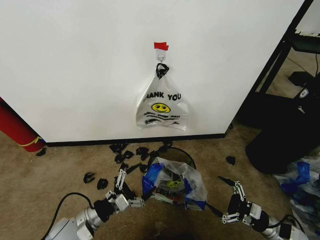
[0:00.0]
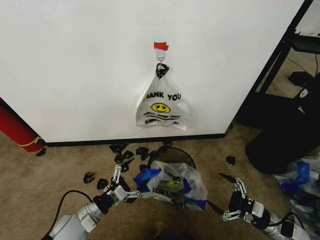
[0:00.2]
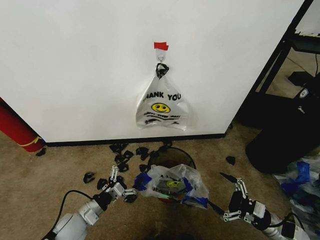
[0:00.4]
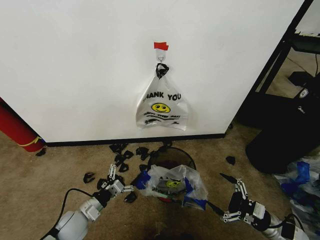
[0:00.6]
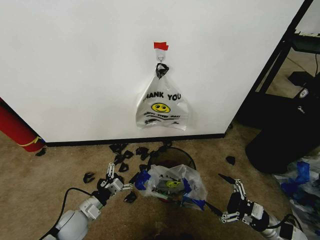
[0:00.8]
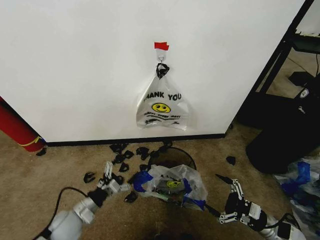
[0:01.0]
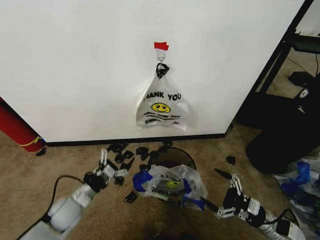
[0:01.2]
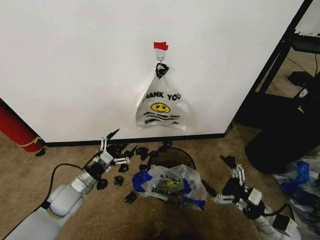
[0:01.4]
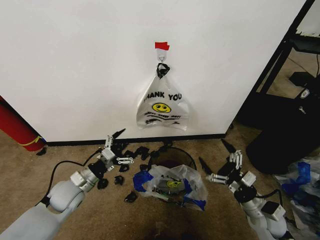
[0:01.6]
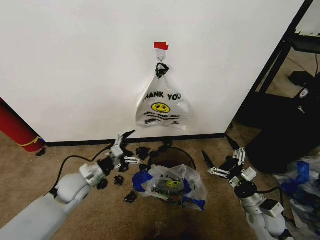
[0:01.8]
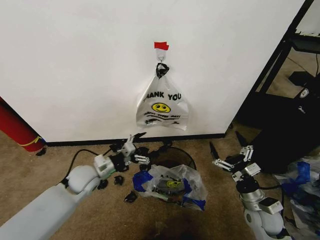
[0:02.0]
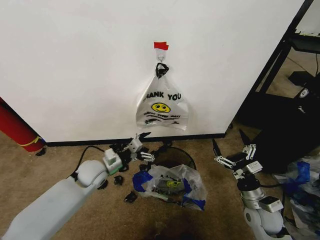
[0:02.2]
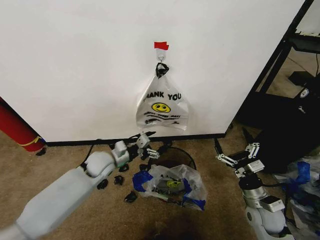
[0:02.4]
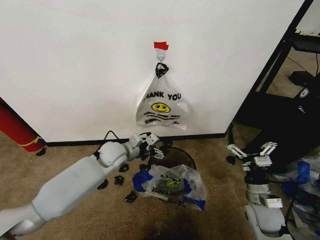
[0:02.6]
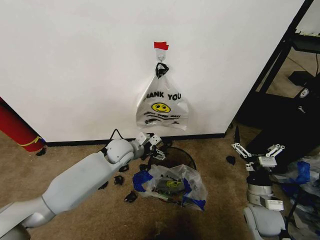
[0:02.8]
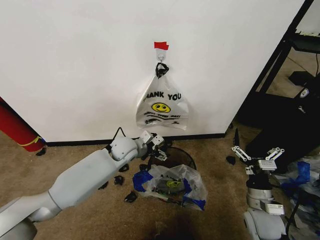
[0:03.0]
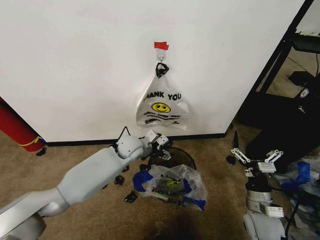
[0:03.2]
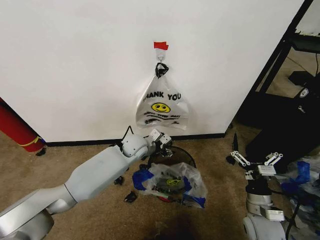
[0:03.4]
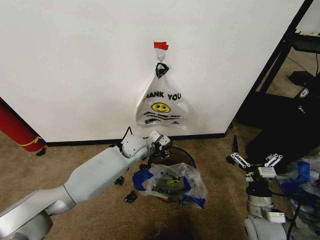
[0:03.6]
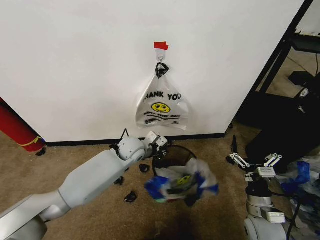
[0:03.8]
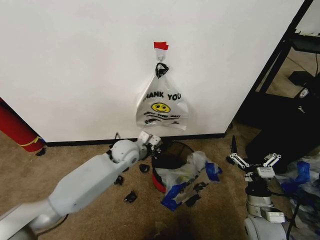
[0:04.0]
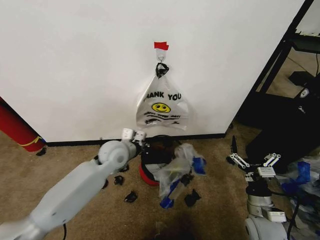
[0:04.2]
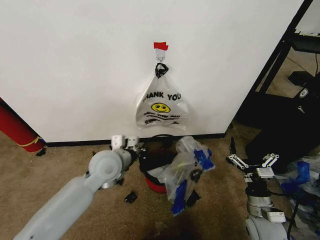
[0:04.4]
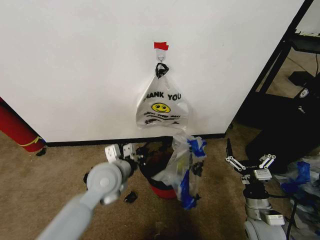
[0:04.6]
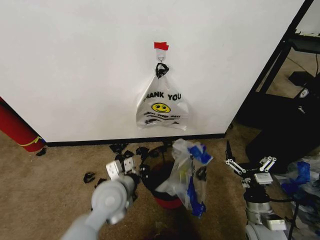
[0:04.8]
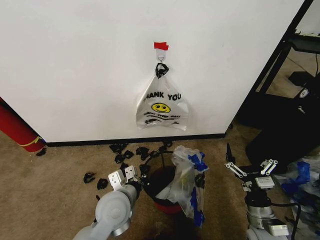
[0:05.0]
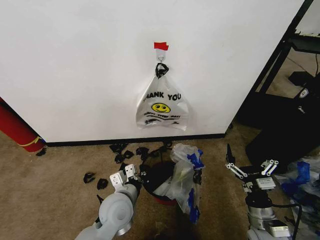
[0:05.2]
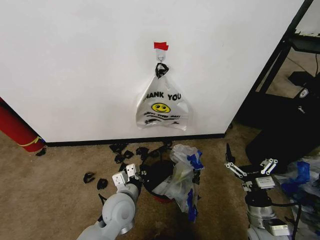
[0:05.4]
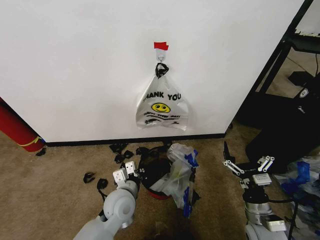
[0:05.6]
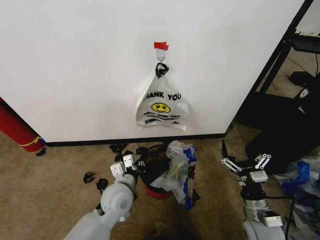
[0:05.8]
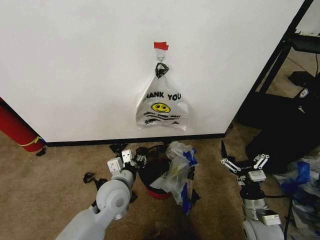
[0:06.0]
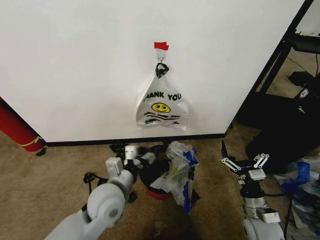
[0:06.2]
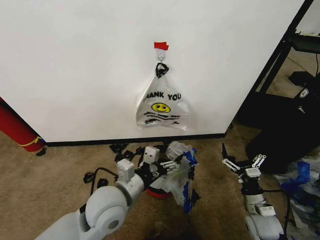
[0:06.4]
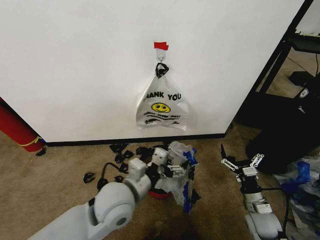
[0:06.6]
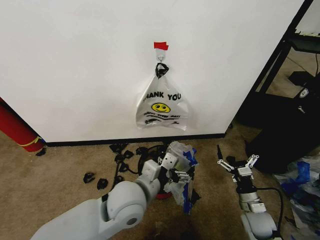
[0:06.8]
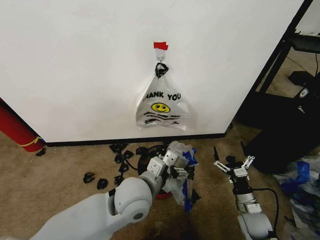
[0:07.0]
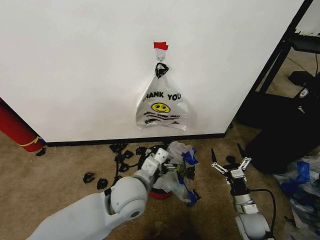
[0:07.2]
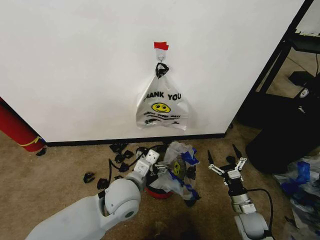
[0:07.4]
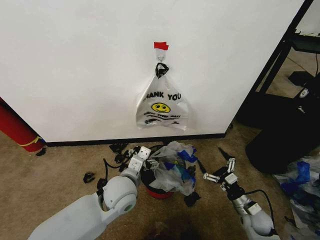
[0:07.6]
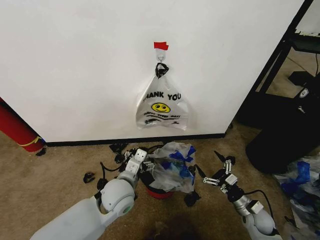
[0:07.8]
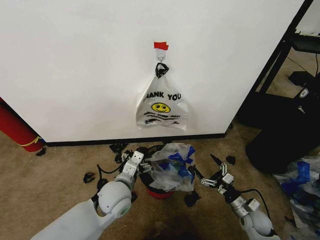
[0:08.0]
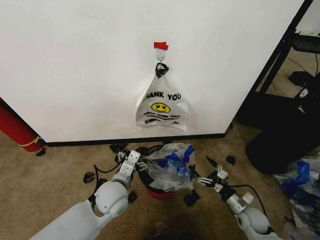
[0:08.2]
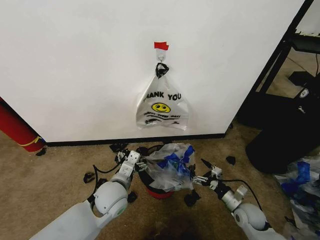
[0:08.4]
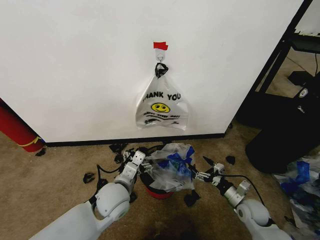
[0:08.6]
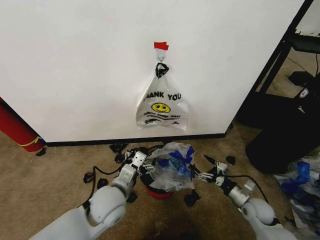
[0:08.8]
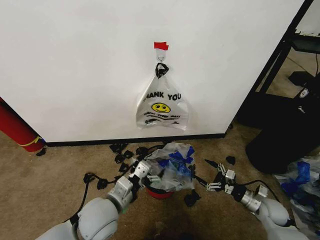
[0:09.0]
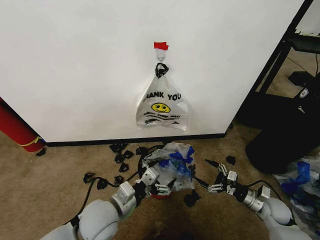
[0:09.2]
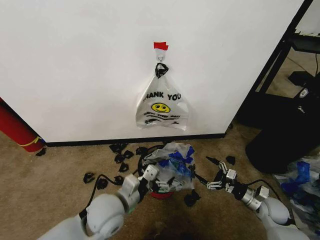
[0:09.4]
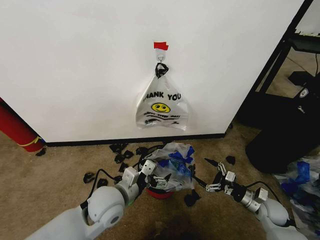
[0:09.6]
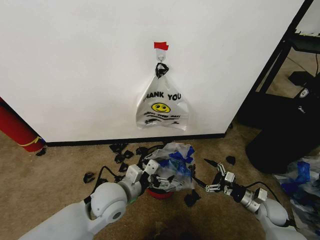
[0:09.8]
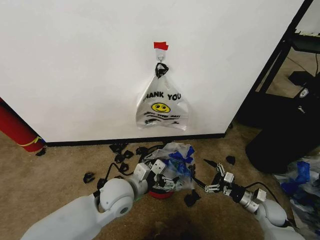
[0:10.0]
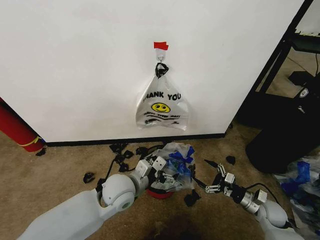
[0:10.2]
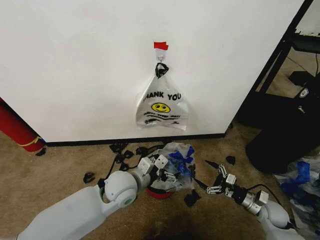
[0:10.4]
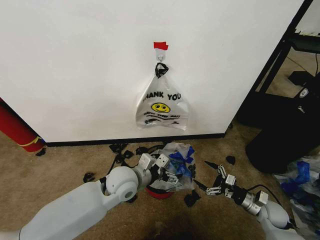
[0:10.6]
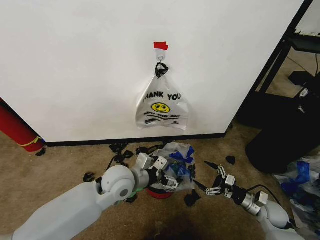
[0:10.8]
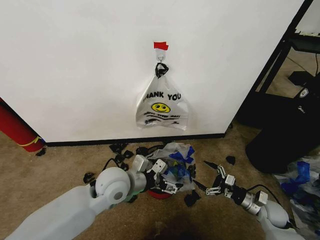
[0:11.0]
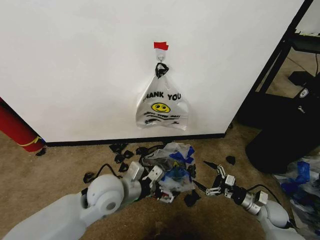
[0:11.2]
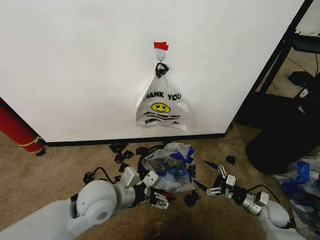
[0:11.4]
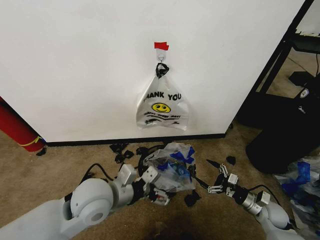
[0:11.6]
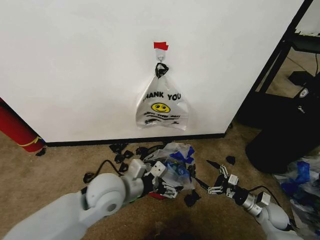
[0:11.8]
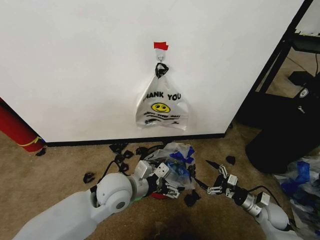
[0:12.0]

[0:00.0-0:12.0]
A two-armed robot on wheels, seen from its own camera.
Task of the whole recording: Pick up the garbage bag from the wall and place it over the trash bin.
0:00.0 to 0:01.6: The left gripper shifts some 10 cm forward. The right gripper heads to the left and upward, covering approximately 10 cm.
0:01.6 to 0:03.0: The left gripper travels to the right and forward by approximately 20 cm.
0:03.0 to 0:04.4: The left gripper travels backward and upward by approximately 10 cm, and closes up.
0:04.4 to 0:06.0: The left gripper heads backward and downward, covering roughly 10 cm, and opens up.
0:06.0 to 0:07.6: The right gripper is displaced downward by roughly 10 cm. Meanwhile the left gripper opens up.
0:07.6 to 0:09.0: The left gripper heads backward, covering about 5 cm. The right gripper moves to the right, roughly 5 cm.
0:09.0 to 0:10.4: The left gripper goes about 10 cm forward.

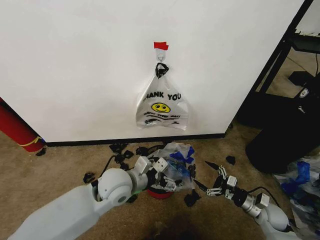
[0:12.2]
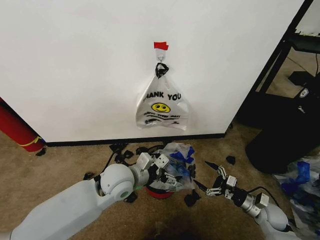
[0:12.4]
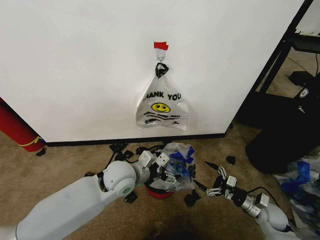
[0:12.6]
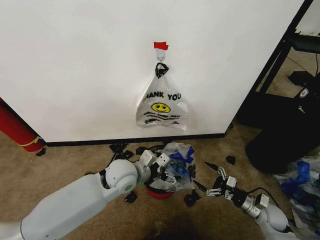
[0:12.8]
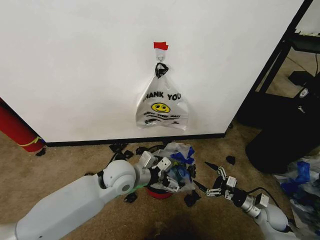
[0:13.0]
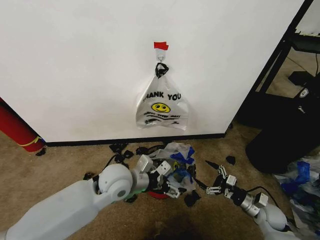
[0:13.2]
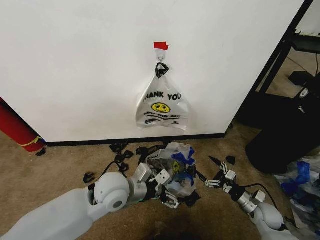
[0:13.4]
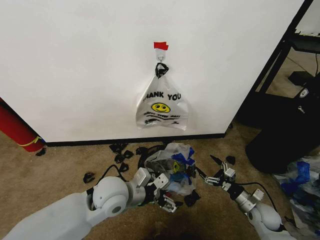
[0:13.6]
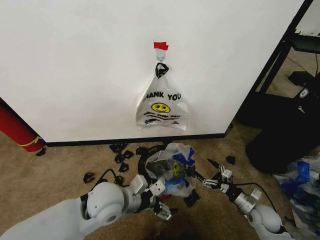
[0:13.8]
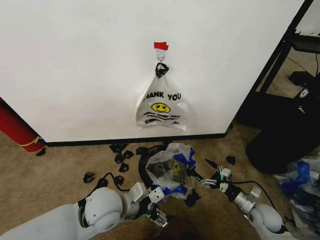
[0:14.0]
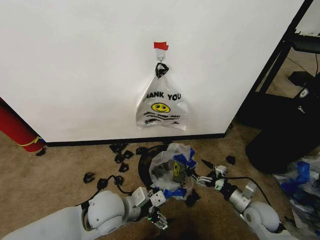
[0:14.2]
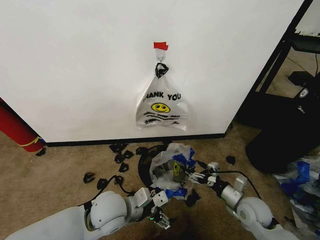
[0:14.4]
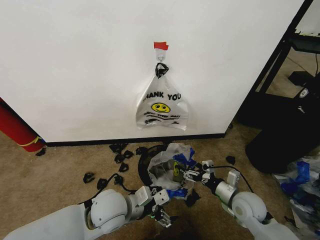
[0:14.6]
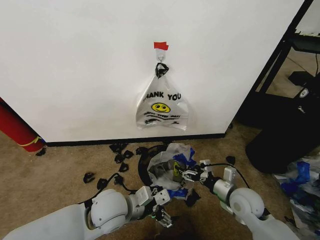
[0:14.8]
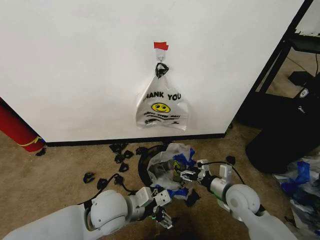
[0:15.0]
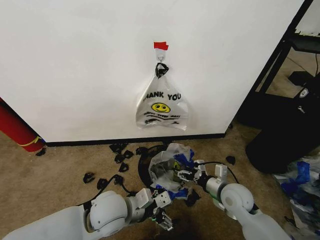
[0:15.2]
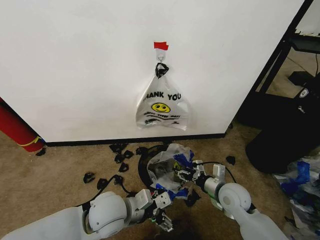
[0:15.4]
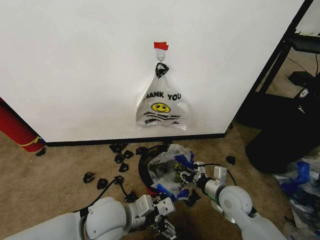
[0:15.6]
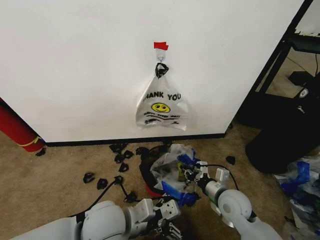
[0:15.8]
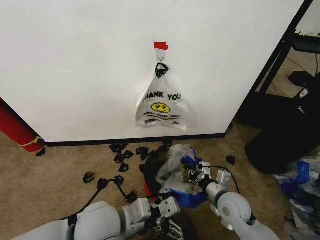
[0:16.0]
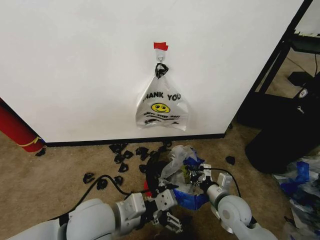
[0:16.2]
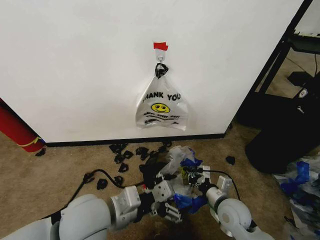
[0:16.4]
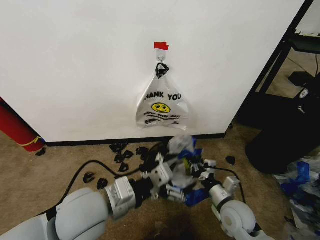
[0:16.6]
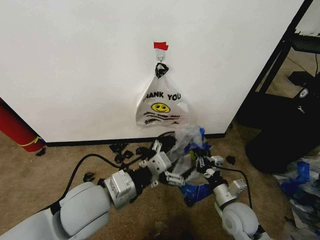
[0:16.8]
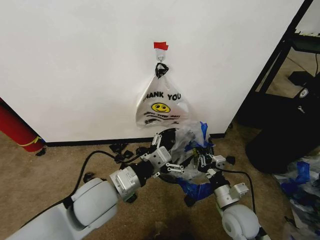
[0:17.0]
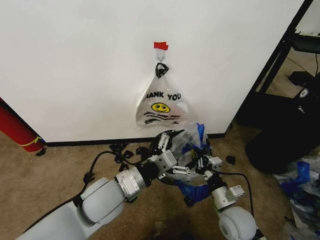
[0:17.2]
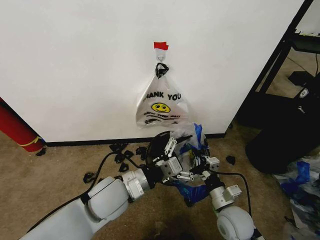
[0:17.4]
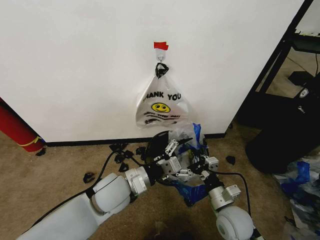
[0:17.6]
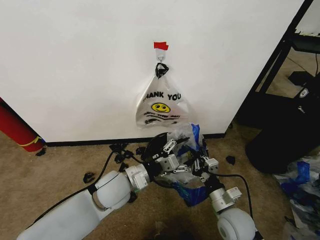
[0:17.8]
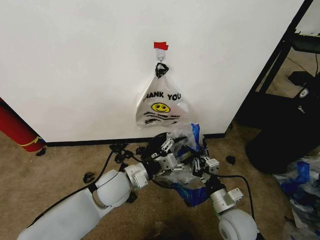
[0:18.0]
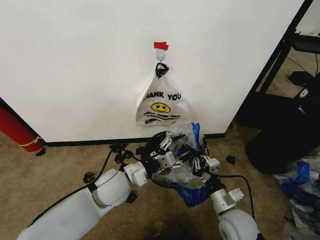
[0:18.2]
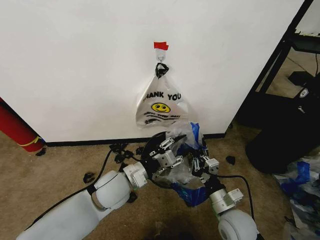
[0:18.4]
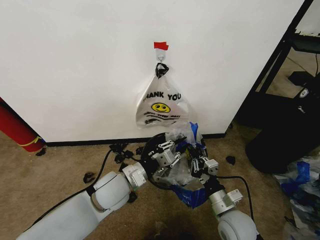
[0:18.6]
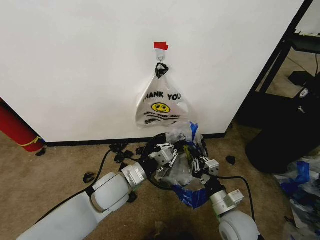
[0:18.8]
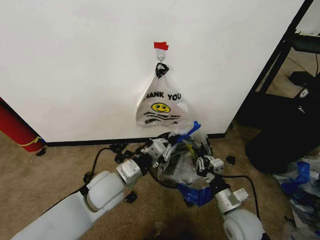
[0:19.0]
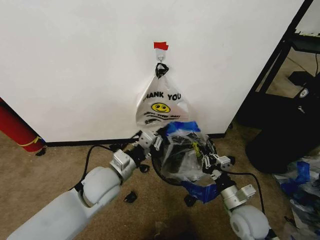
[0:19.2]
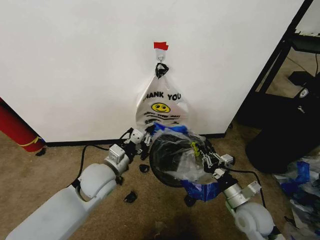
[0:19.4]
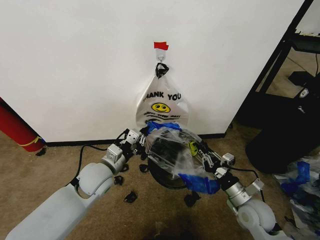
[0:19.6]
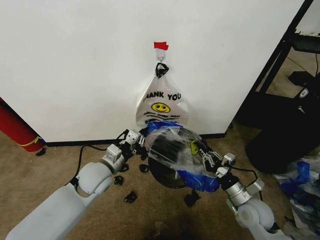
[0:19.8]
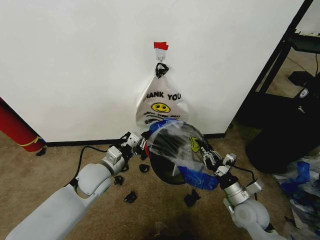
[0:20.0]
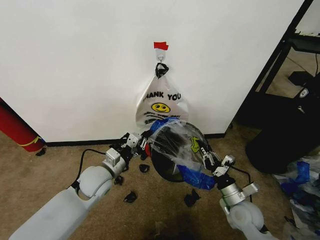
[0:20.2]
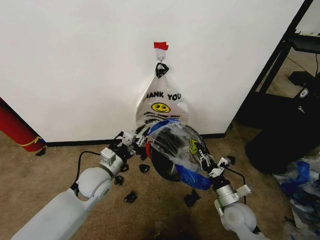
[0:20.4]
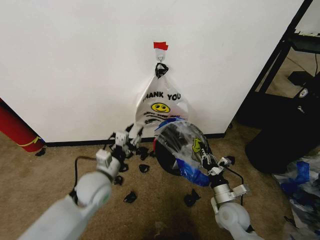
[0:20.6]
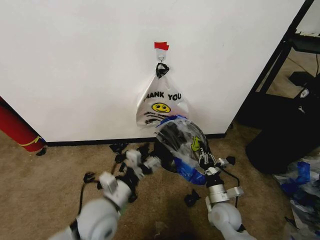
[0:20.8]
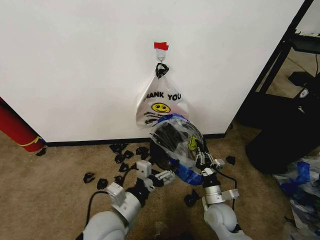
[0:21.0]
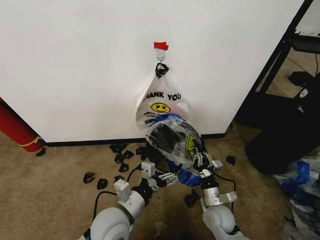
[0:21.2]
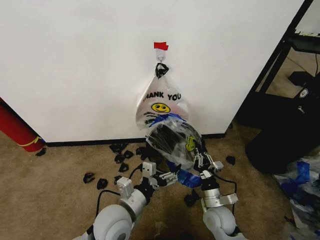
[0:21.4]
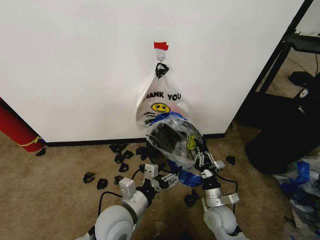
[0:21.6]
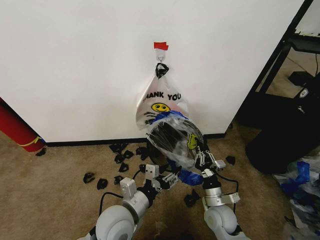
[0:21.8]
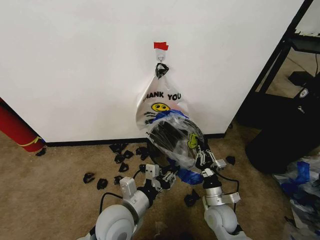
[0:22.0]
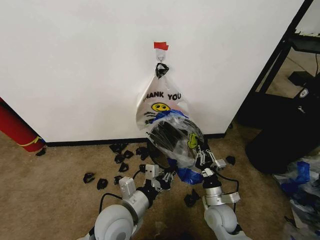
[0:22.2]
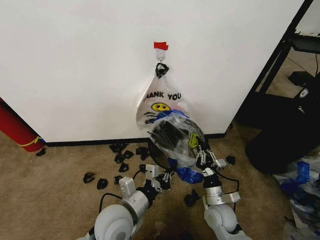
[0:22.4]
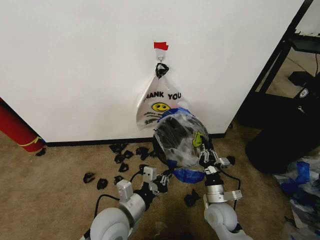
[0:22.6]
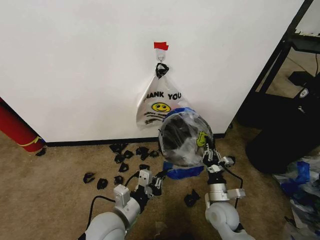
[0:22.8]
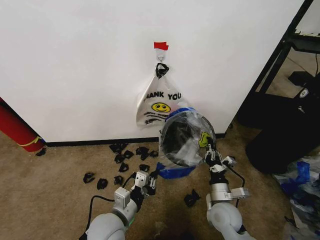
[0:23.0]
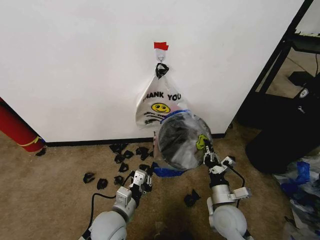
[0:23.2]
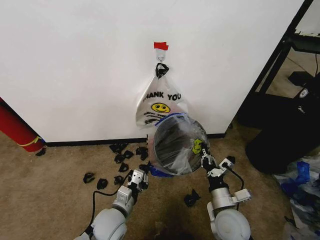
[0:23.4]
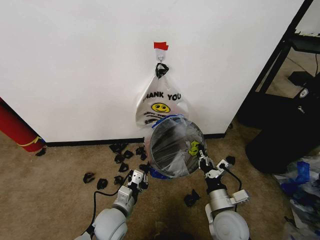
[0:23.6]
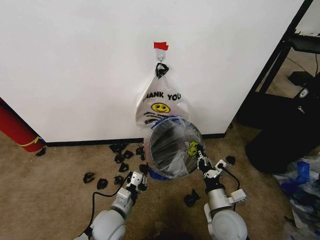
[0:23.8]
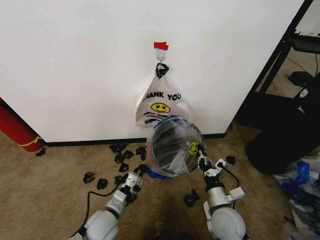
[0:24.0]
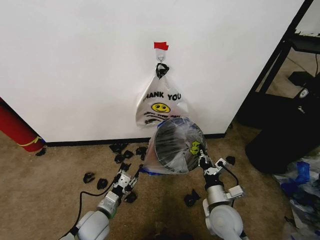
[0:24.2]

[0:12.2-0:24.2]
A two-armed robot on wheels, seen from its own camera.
Task of the whole recording: Pick up the garbage bag from the wall and place it over the trash bin.
0:12.2 to 0:13.8: The left gripper ends up some 5 cm from where it was.
0:13.8 to 0:15.2: The right gripper shifts approximately 15 cm to the left and upward.
0:15.2 to 0:16.6: The right gripper goes some 5 cm backward, and closes its fingers, while the left gripper heads upward, covering roughly 10 cm.
0:16.6 to 0:18.2: The left gripper moves forward and downward, some 15 cm.
0:18.2 to 0:19.8: The right gripper shifts some 10 cm to the right; the left gripper moves to the left, about 5 cm, and closes.
0:19.8 to 0:21.2: The right gripper goes approximately 10 cm to the left and downward; the left gripper is displaced backward and to the right by some 15 cm, and opens.
0:21.2 to 0:22.6: The left gripper closes up.
0:22.6 to 0:24.2: The right gripper ends up about 5 cm from where it was. Meanwhile the left gripper heads downward and to the left, covering roughly 15 cm, and opens up.
